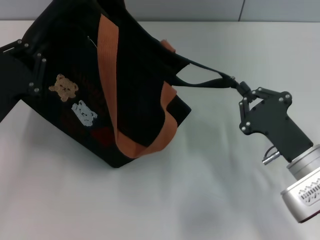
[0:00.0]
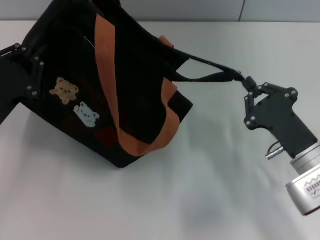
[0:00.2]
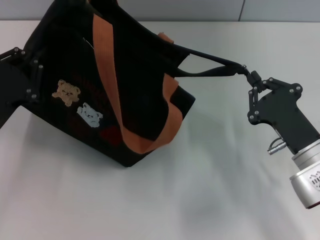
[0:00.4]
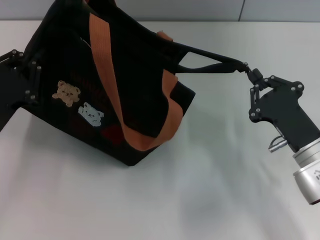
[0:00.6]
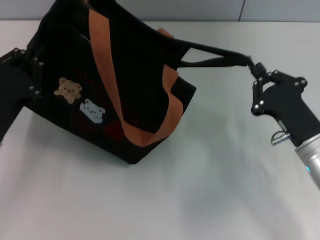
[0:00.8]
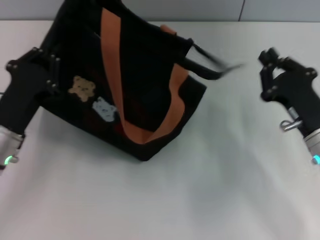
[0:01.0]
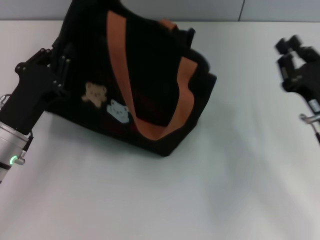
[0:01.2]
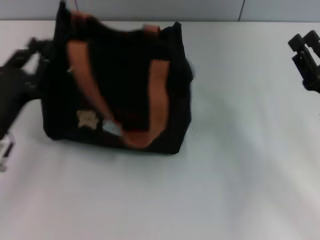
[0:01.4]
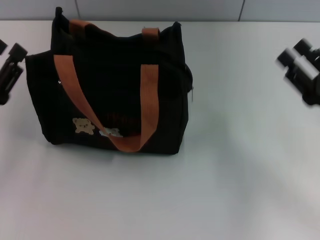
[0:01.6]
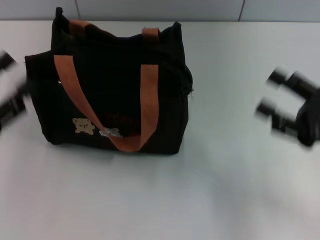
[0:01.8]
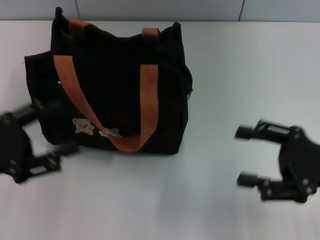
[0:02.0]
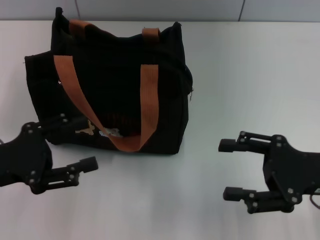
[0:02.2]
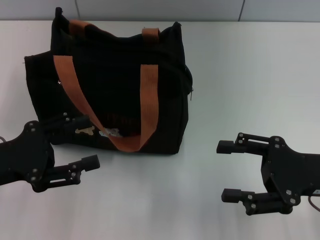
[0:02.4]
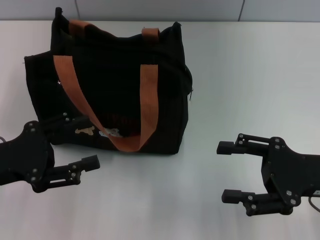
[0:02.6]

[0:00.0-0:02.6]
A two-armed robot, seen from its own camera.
Step, 0:01.2 to 0:01.4: Grab the bag with your left hand.
0:00.0 to 0:01.2: The right gripper moves some 5 cm.
0:01.2 to 0:02.6: The right gripper ends up roughly 5 cm from where it was, and opens its fingers. The left gripper shifts approximately 5 cm to the left, and opens up.

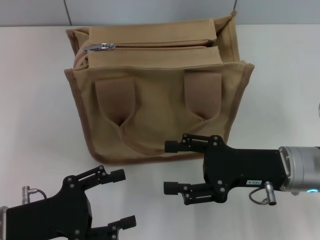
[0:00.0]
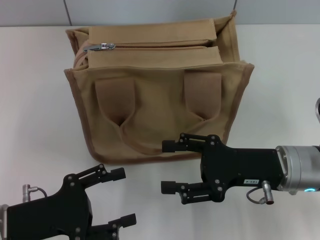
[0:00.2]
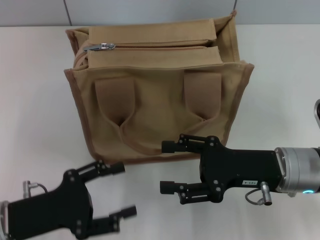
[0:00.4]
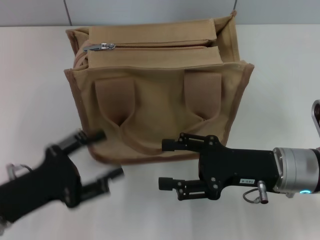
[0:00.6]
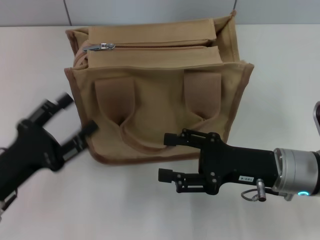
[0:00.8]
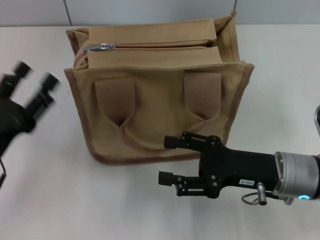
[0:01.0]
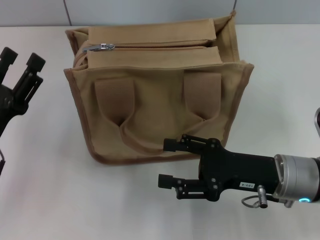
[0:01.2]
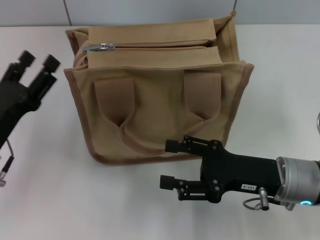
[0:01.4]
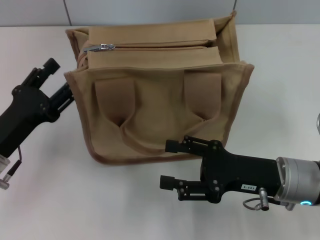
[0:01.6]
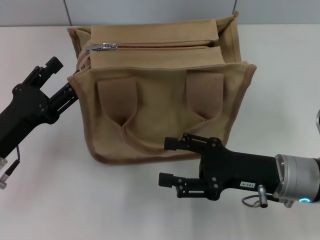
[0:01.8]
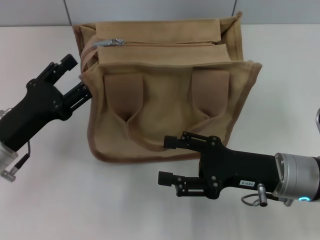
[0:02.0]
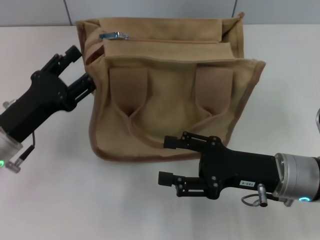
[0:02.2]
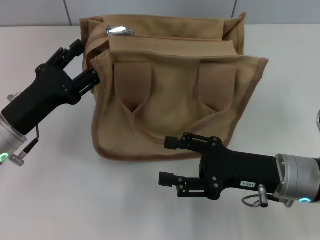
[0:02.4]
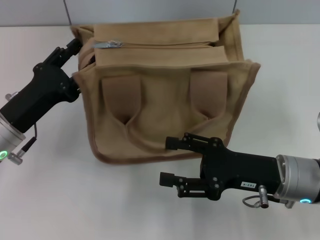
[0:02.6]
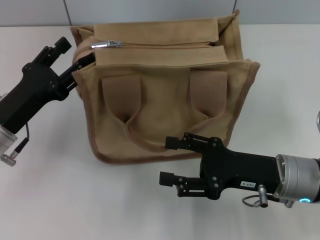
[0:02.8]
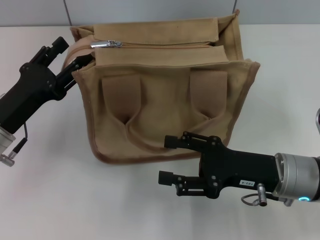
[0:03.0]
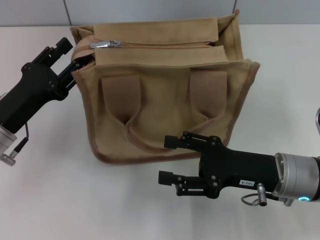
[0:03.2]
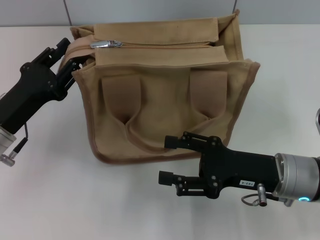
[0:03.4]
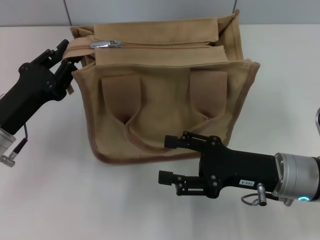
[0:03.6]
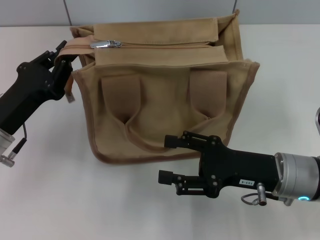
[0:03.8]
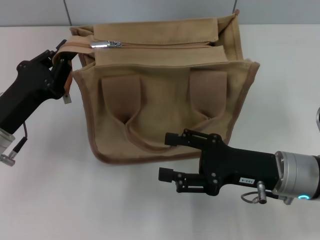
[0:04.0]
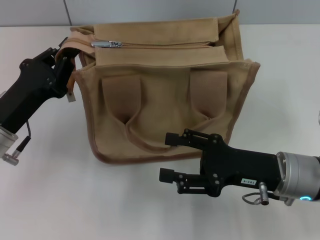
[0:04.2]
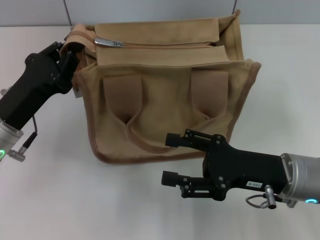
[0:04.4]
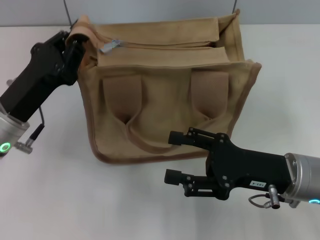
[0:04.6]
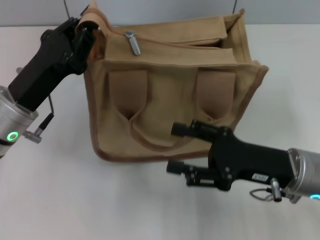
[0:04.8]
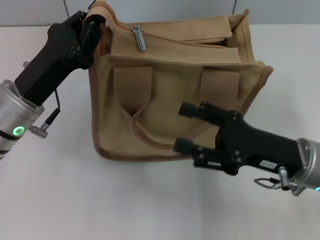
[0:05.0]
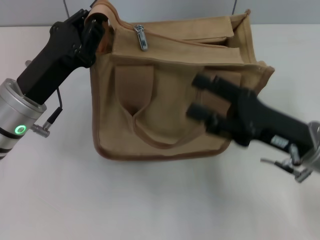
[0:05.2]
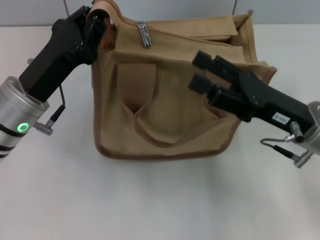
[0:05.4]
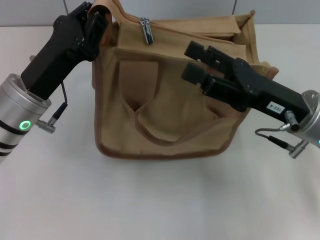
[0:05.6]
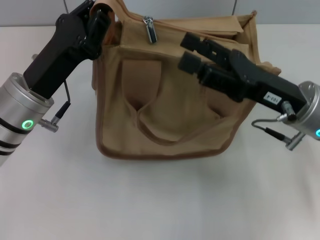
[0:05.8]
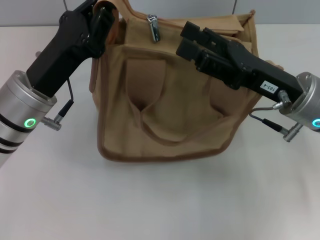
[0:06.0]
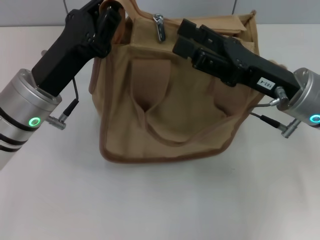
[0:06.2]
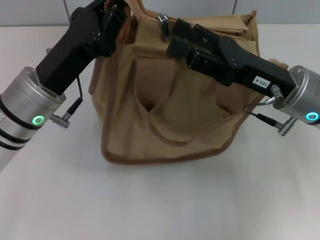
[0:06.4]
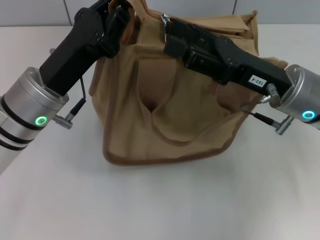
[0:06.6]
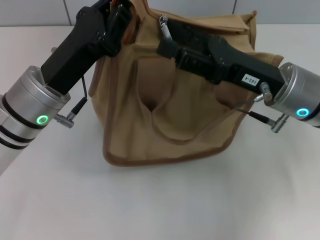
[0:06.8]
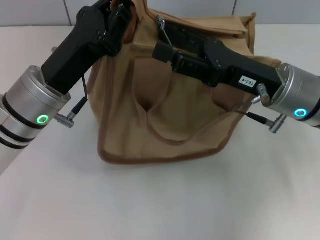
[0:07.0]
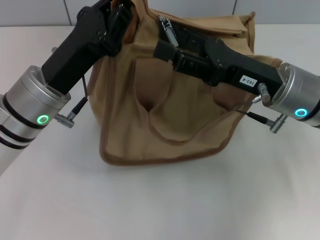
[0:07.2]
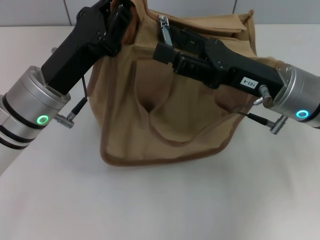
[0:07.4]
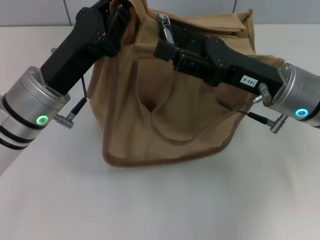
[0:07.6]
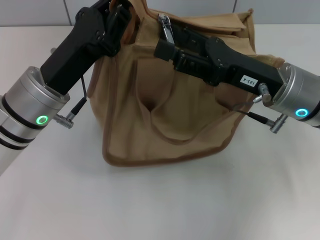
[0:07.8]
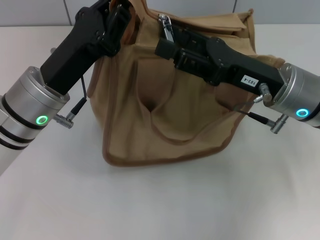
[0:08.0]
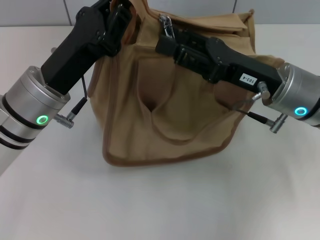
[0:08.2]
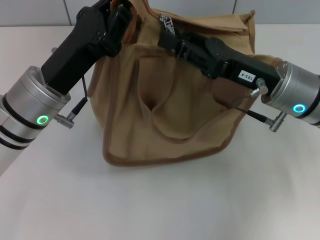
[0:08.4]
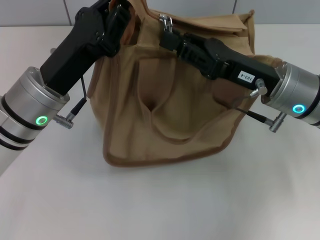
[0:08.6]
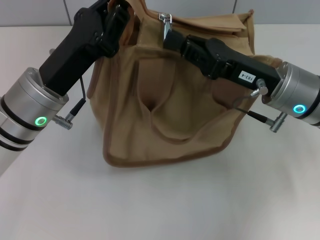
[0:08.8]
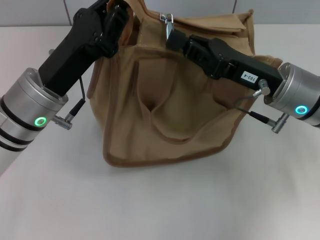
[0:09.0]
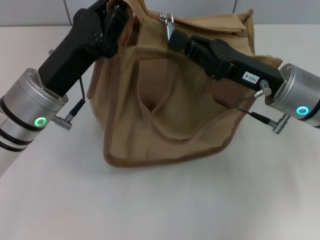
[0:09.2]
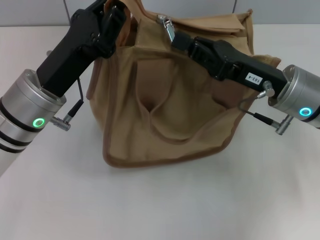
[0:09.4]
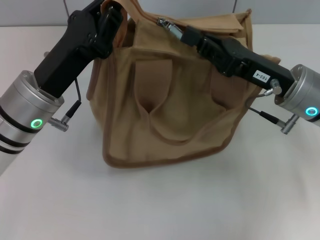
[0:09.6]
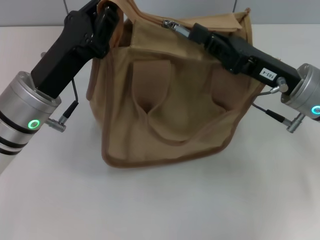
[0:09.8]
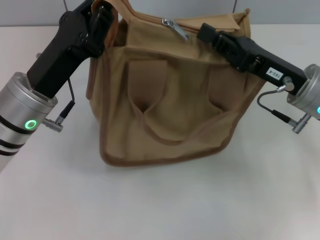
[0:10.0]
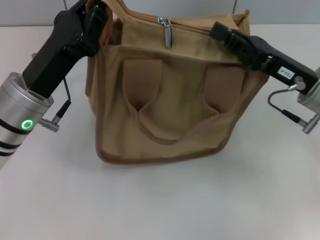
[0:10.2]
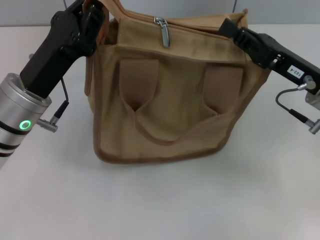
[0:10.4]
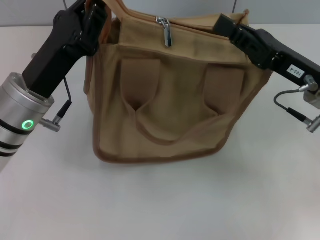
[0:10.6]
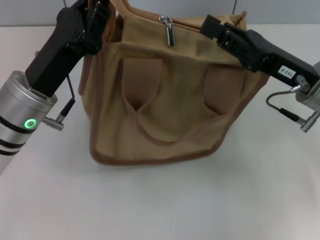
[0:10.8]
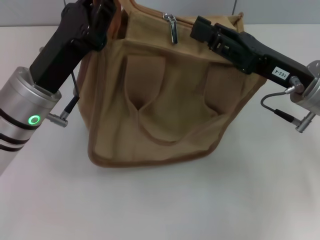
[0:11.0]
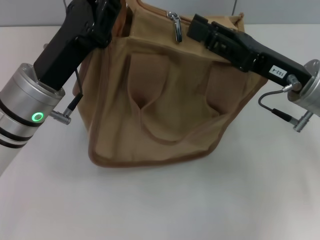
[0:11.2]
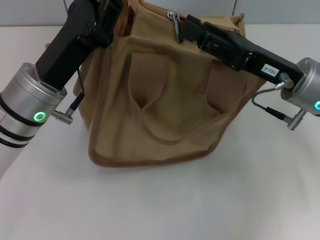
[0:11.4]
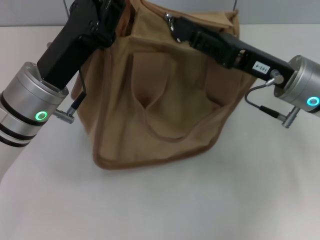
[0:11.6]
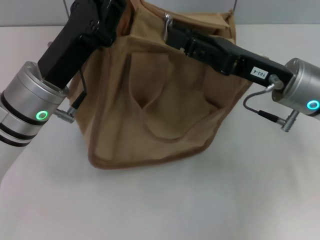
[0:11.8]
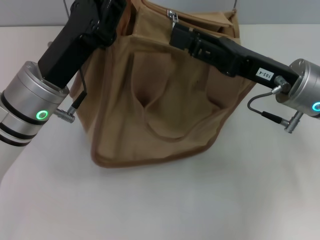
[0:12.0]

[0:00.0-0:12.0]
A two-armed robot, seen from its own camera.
0:00.0 to 0:01.6: The left gripper shifts roughly 5 cm forward.
0:01.6 to 0:03.0: The grippers move only a little.
0:03.0 to 0:04.4: The left gripper closes.
0:04.4 to 0:06.0: The right gripper heads forward and upward, covering approximately 10 cm; the left gripper travels to the right by some 5 cm.
0:06.0 to 0:07.6: The grippers stay close to where they were, moving slightly.
0:07.6 to 0:09.0: The right gripper closes up.
0:09.0 to 0:10.4: The right gripper shifts about 5 cm to the right.
0:10.4 to 0:12.0: The right gripper opens its fingers.

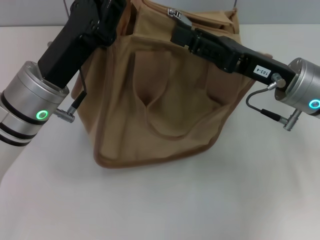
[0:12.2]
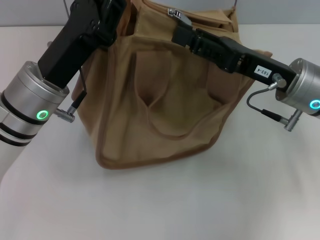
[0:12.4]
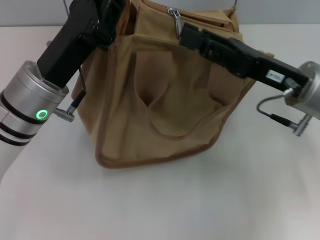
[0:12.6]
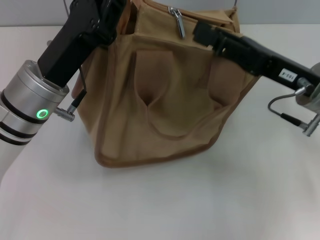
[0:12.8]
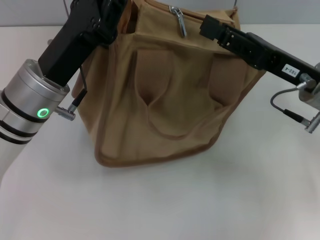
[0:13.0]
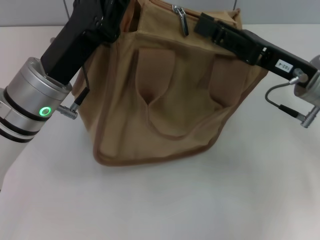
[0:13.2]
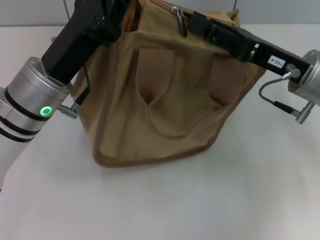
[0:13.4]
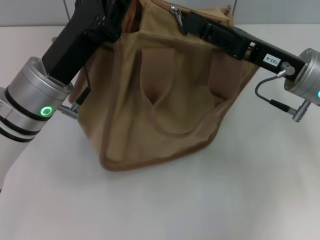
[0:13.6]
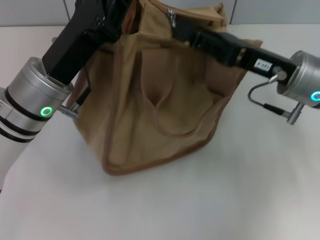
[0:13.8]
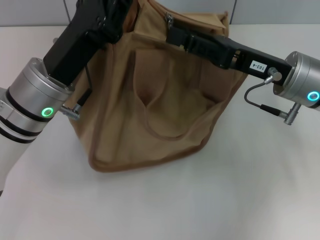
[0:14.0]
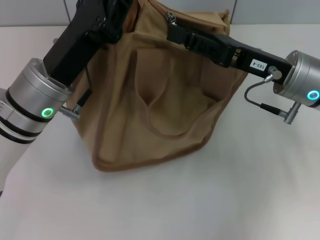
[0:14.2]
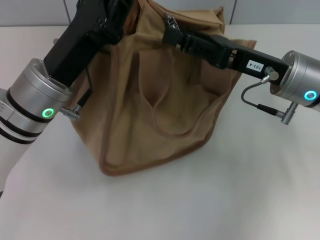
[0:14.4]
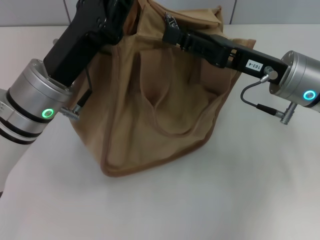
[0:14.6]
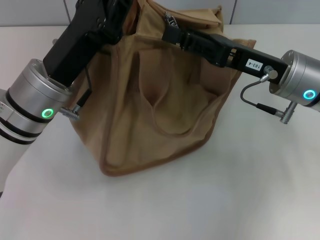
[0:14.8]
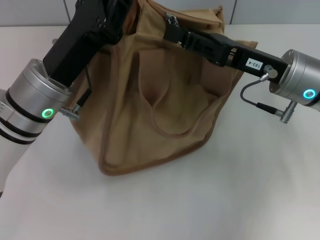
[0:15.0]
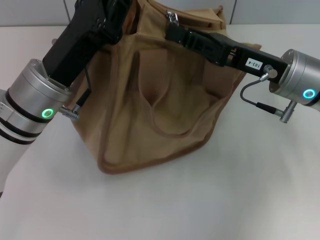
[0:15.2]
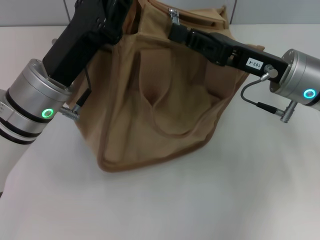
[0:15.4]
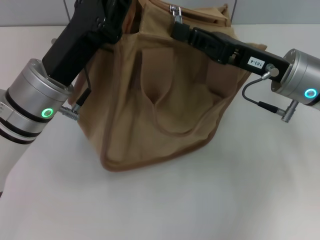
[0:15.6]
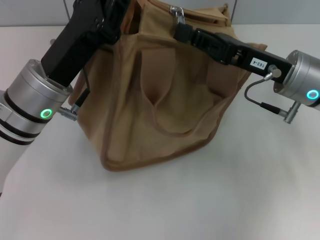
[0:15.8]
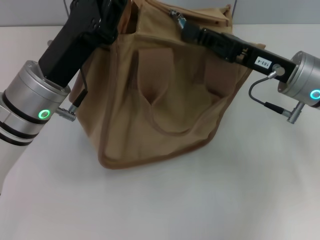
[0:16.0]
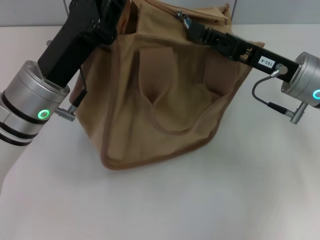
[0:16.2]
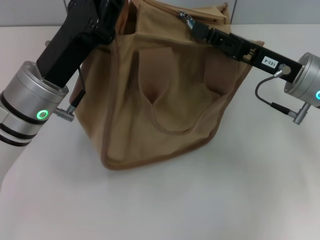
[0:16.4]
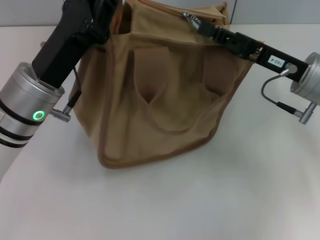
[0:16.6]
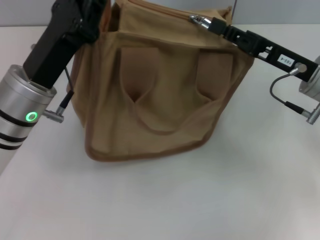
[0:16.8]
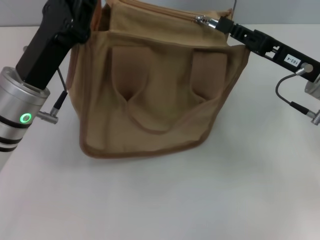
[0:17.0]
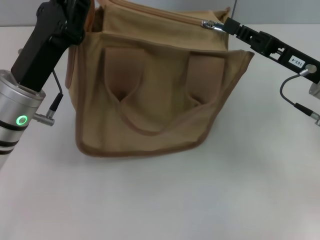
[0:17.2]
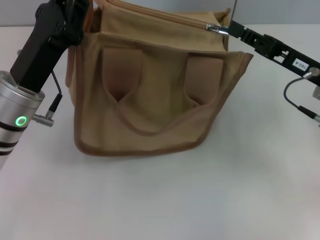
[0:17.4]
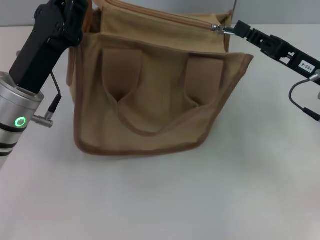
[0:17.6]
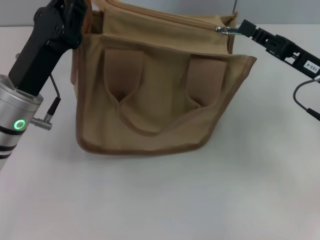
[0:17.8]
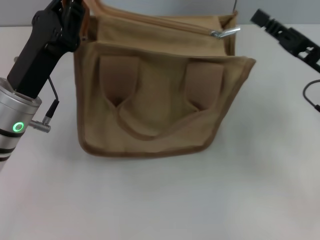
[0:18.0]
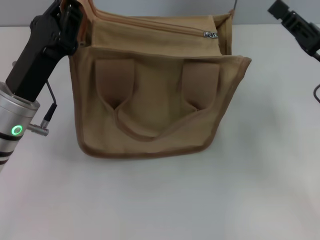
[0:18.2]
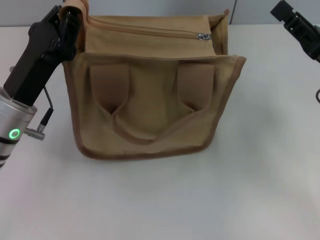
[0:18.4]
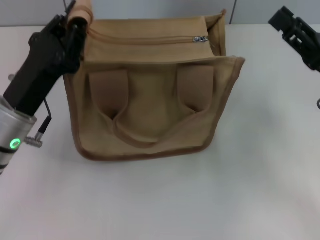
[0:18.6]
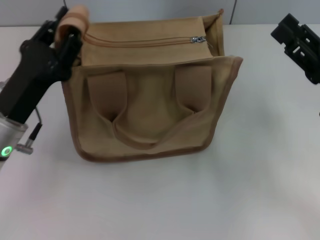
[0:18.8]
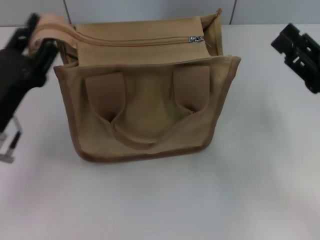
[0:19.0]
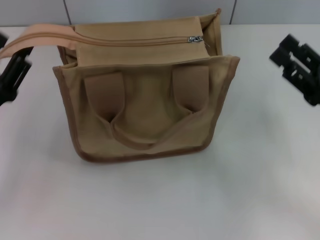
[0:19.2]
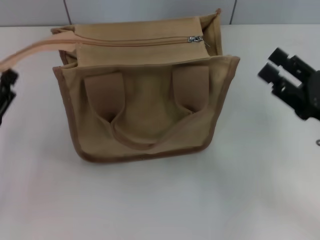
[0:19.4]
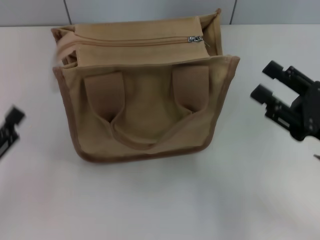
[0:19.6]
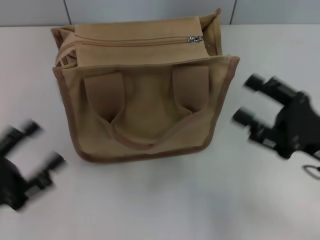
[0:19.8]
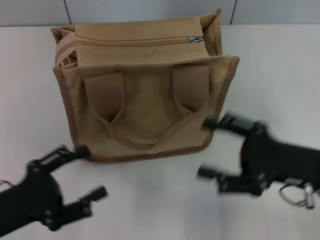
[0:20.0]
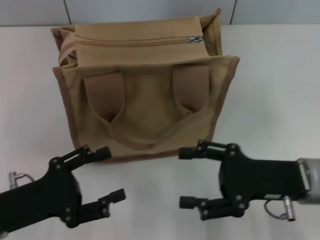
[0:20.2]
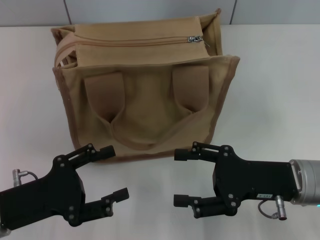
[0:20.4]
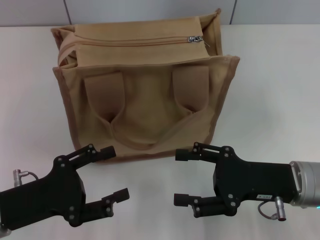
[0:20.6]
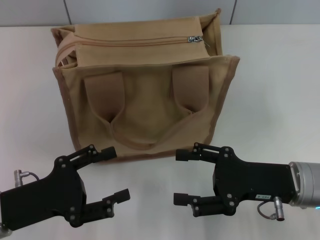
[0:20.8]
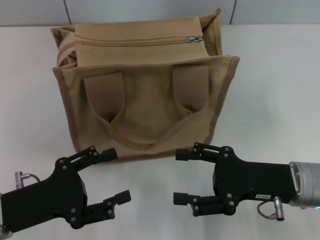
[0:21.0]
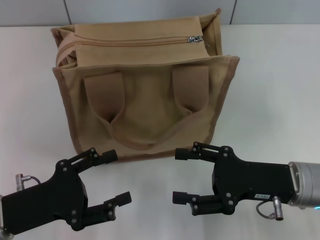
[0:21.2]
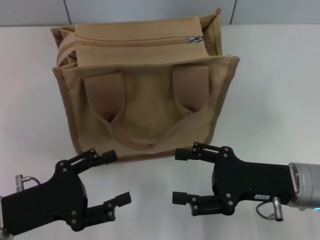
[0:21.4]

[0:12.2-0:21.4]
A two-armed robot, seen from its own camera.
Step, 0:12.2 to 0:18.0: Pull up the zipper with your right hand.
Step, 0:18.2 to 0:19.4: Grab the zipper with your left hand.
0:12.2 to 0:13.8: There are only small adjustments of the grippers.
0:13.8 to 0:15.2: Both grippers stay put.
0:15.2 to 0:16.8: The right gripper closes up.
0:16.8 to 0:18.4: The right gripper shifts by roughly 5 cm.
0:18.4 to 0:19.8: The right gripper heads backward, covering some 5 cm, and opens its fingers. The left gripper goes some 15 cm backward and to the left, and opens.
0:19.8 to 0:21.4: The right gripper changes place by roughly 5 cm. The left gripper shifts by roughly 5 cm.
